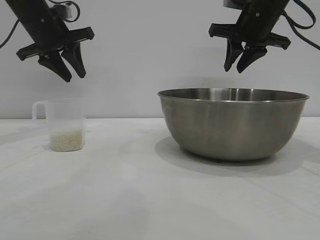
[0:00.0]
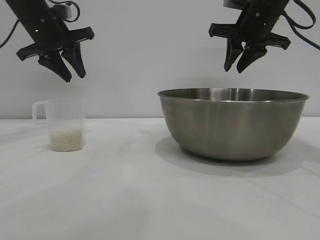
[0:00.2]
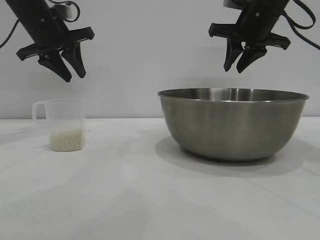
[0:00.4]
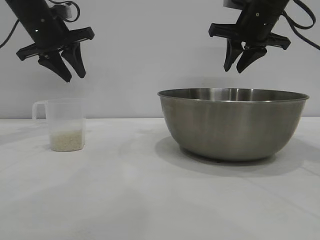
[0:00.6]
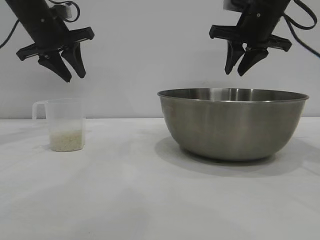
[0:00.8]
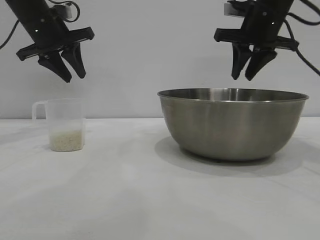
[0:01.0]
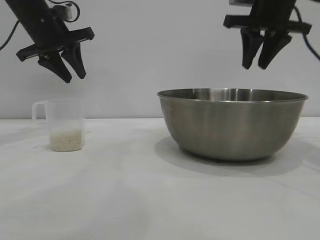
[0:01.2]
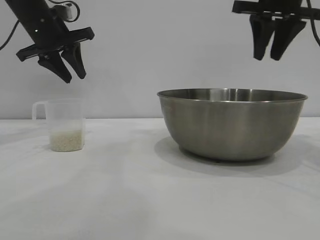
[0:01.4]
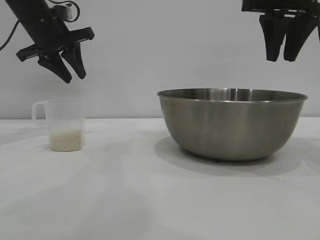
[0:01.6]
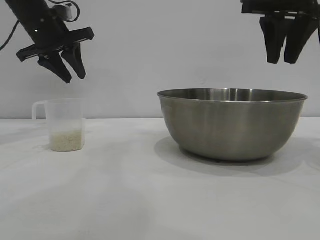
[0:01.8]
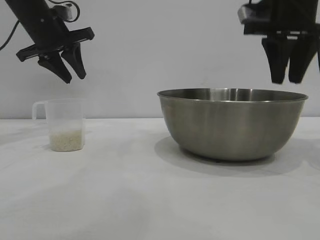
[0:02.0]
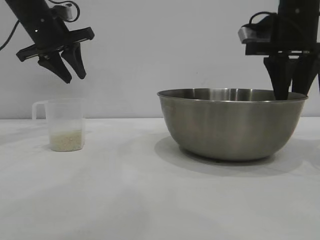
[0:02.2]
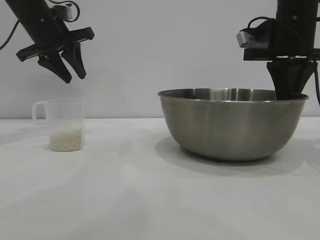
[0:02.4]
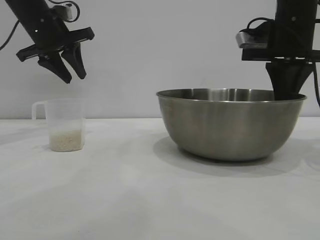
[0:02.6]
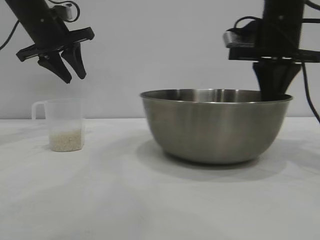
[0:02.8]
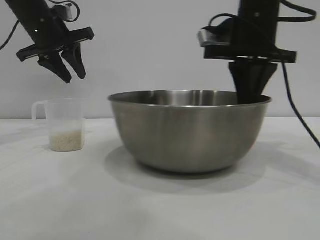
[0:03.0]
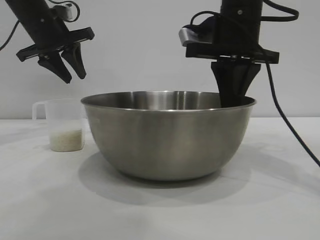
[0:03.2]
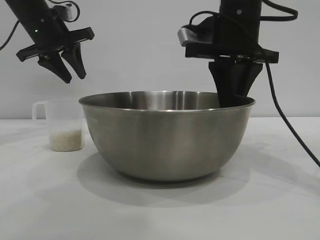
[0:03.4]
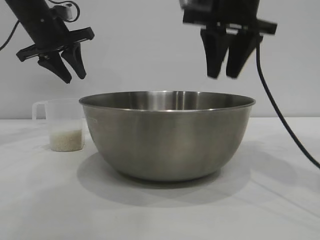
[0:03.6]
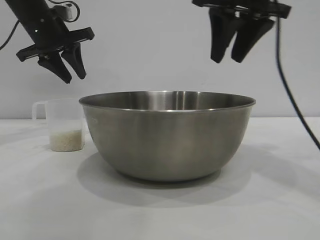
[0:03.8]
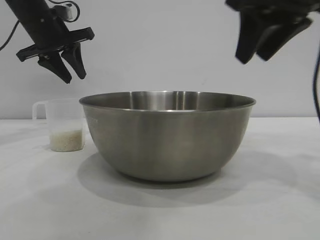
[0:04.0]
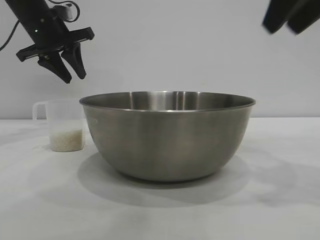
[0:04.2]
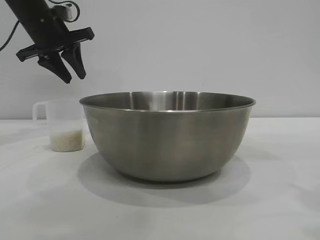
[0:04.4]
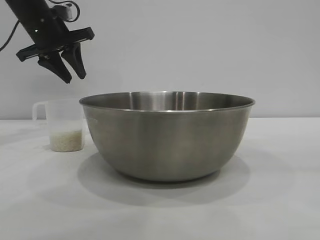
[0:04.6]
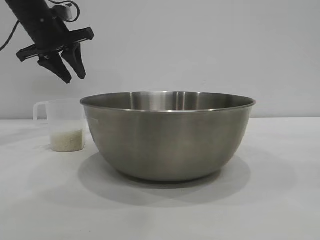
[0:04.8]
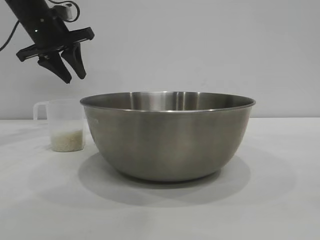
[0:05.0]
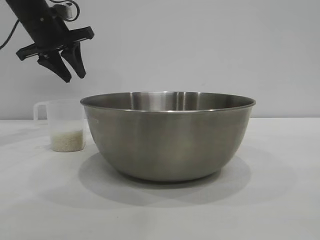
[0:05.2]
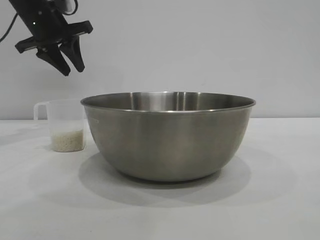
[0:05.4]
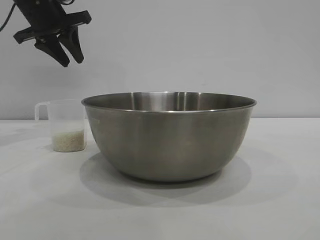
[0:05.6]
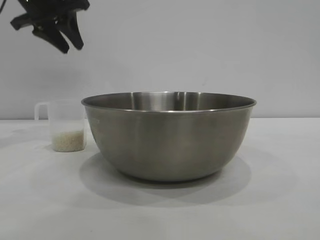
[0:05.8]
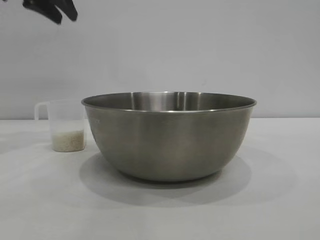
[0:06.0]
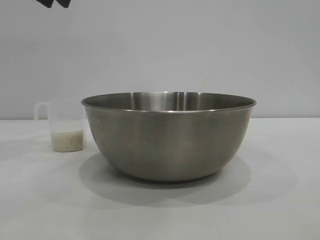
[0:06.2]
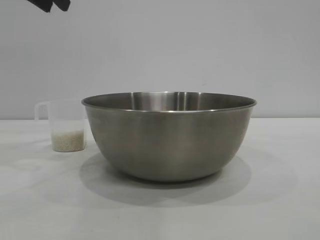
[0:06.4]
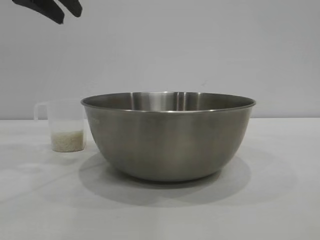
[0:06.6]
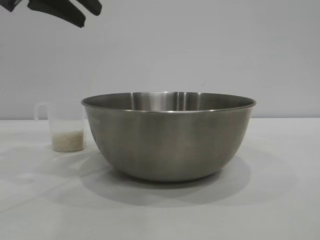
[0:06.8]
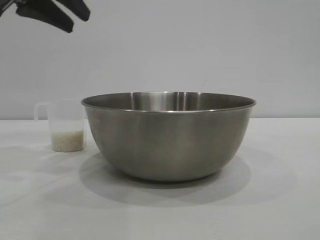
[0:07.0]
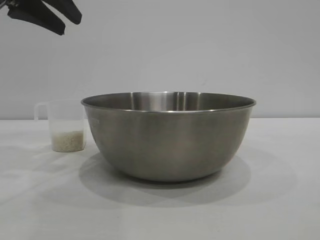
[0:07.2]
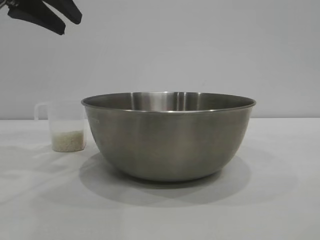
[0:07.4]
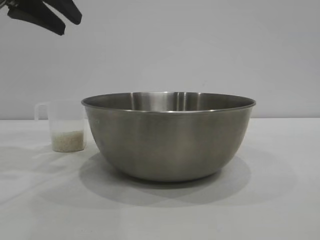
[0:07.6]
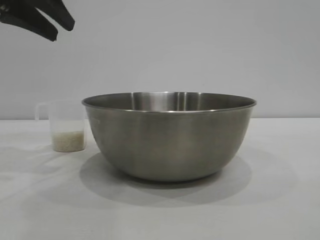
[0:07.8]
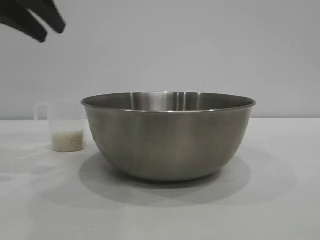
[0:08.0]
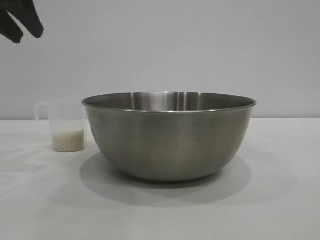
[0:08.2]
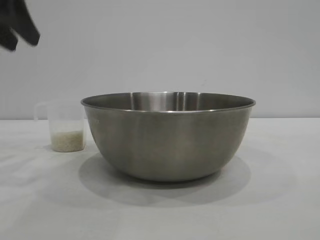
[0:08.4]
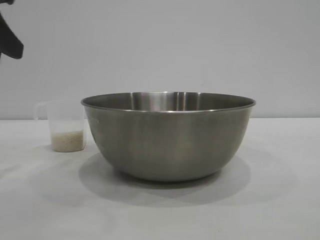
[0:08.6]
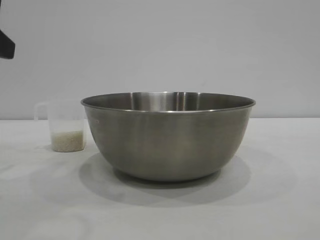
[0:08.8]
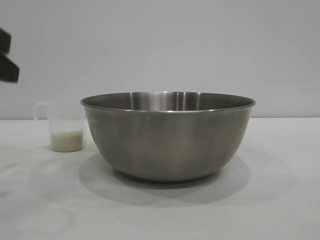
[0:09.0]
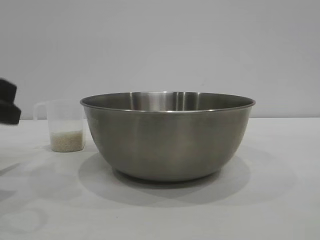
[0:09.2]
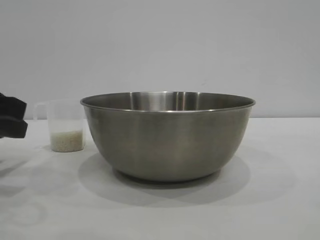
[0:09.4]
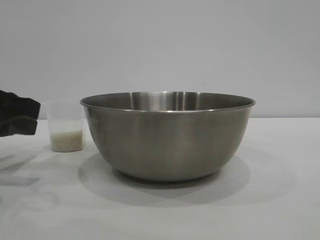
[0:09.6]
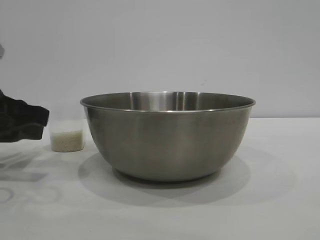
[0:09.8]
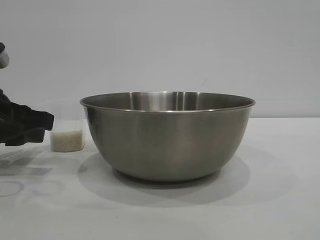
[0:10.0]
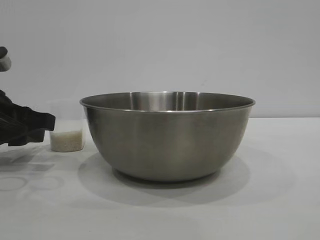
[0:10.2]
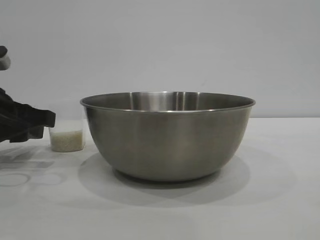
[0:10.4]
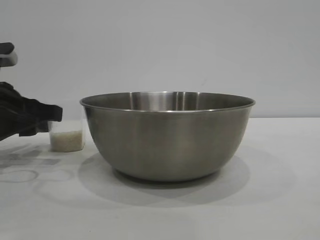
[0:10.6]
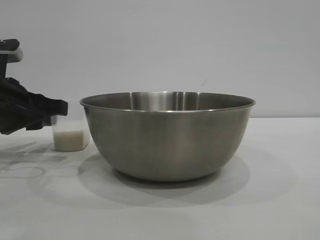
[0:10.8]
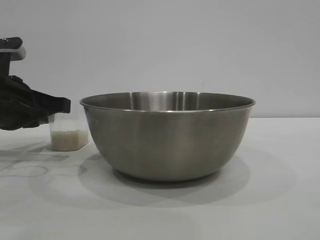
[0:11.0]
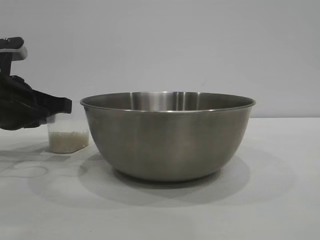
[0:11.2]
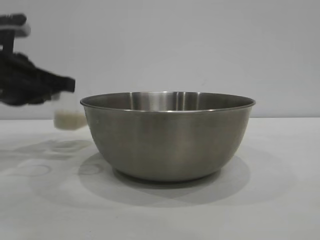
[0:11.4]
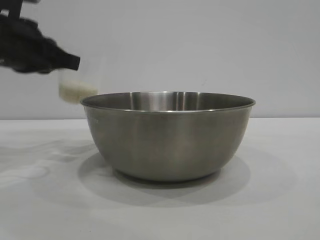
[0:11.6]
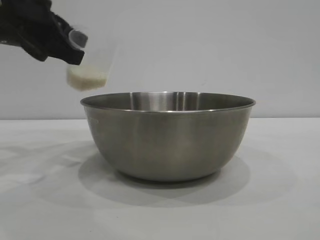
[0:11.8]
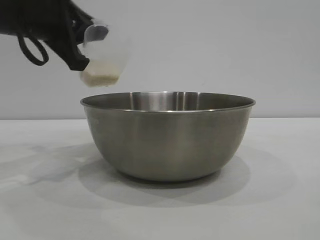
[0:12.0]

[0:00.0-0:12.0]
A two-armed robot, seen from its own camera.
Task of the whole recording: the right gripper grasp the rice container and place it in the center of the table, the left gripper grasp the rice scoop and pour the rice into the rice container.
Step, 0:00.0 to 0:03.4: Move the bowl to the center of view with the right gripper.
Step, 0:03.6 to 0:11.2: Pick up the cup with rice in it with the left gripper.

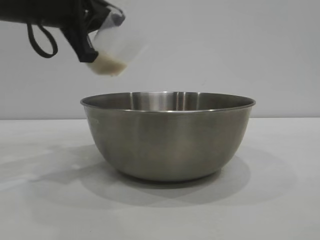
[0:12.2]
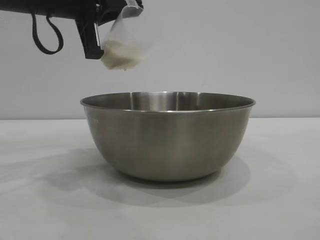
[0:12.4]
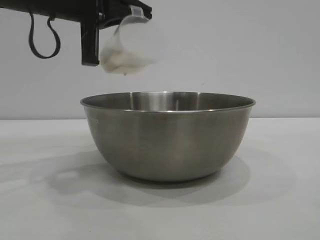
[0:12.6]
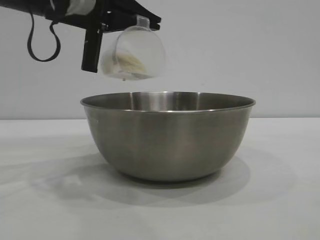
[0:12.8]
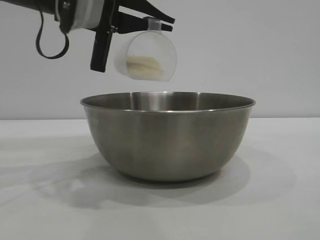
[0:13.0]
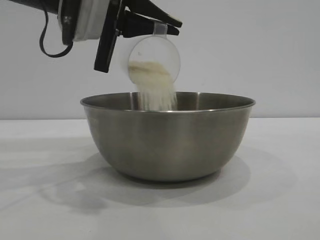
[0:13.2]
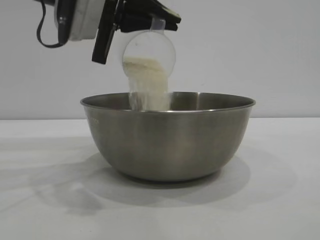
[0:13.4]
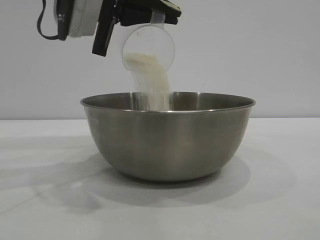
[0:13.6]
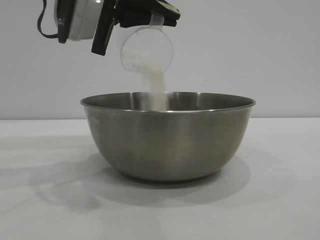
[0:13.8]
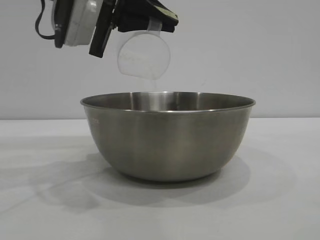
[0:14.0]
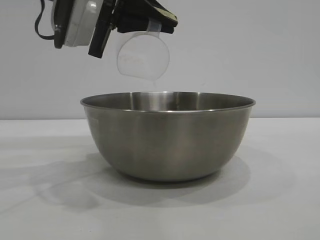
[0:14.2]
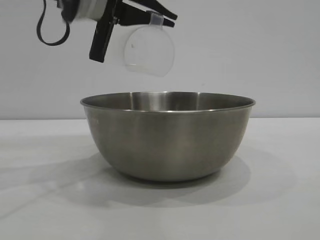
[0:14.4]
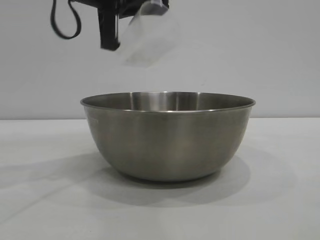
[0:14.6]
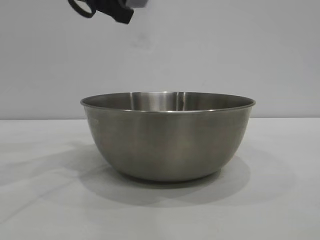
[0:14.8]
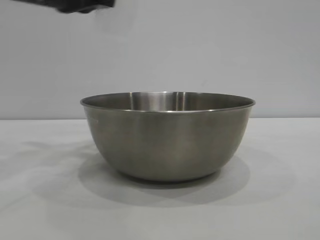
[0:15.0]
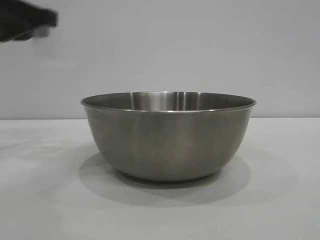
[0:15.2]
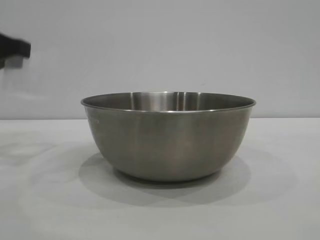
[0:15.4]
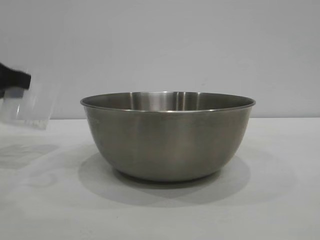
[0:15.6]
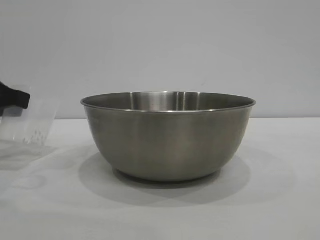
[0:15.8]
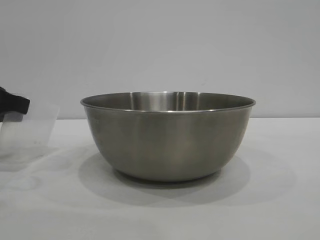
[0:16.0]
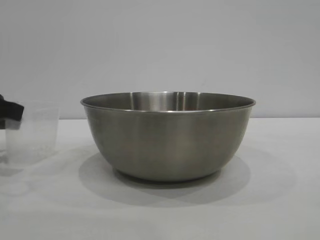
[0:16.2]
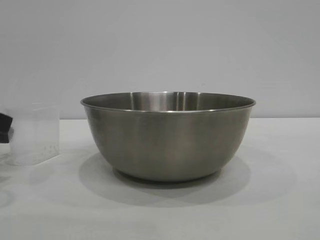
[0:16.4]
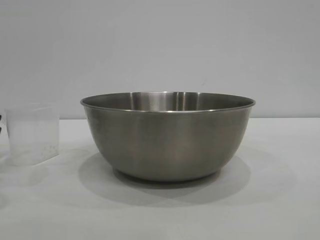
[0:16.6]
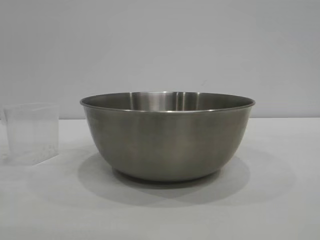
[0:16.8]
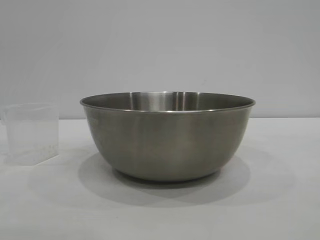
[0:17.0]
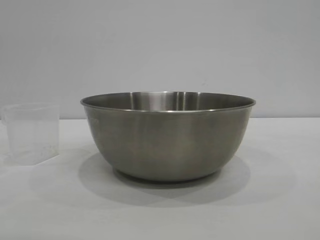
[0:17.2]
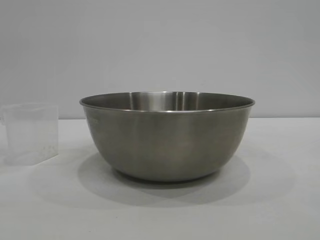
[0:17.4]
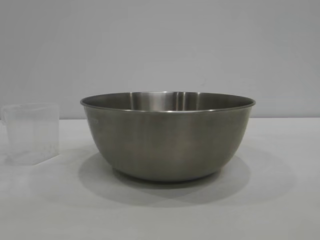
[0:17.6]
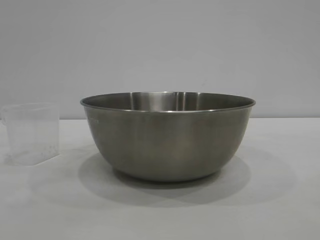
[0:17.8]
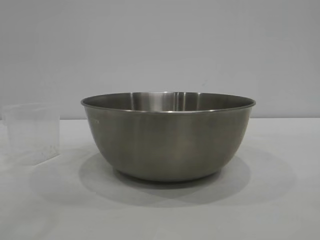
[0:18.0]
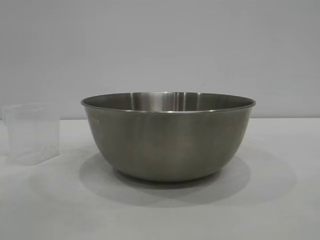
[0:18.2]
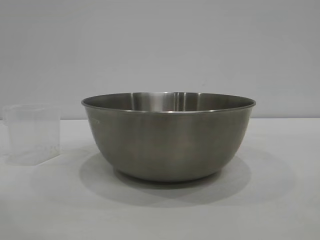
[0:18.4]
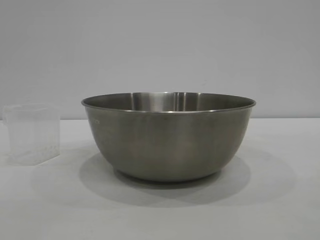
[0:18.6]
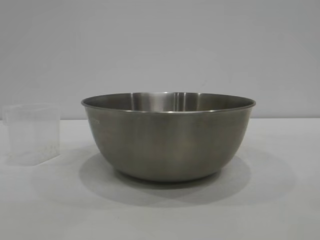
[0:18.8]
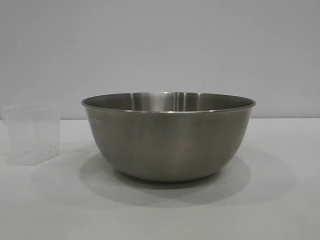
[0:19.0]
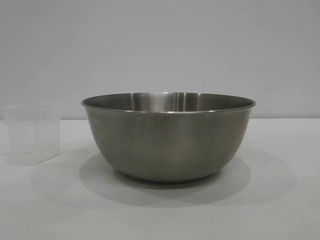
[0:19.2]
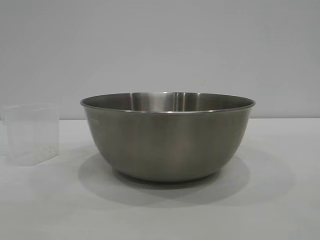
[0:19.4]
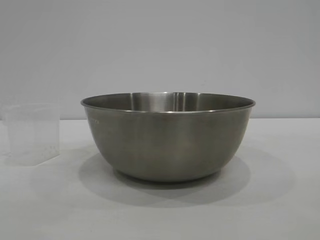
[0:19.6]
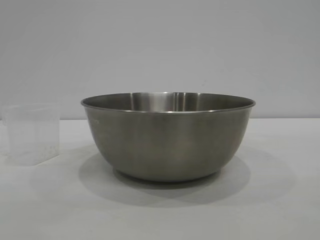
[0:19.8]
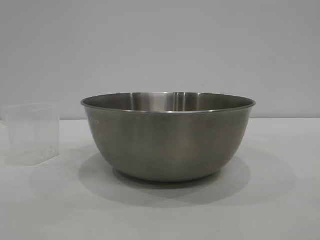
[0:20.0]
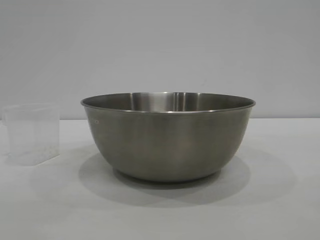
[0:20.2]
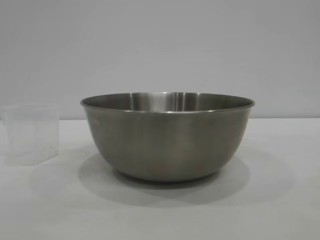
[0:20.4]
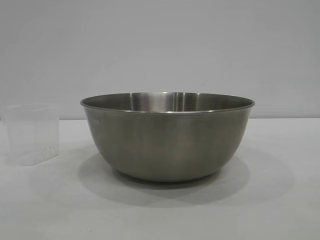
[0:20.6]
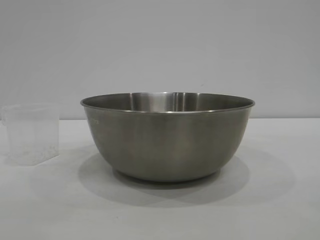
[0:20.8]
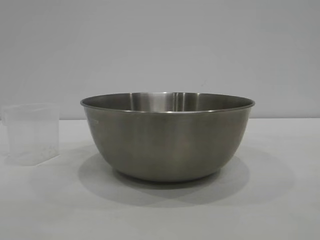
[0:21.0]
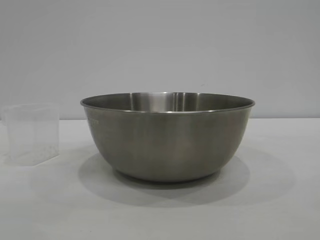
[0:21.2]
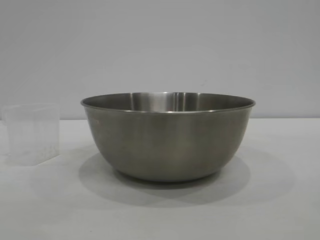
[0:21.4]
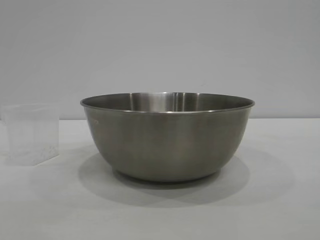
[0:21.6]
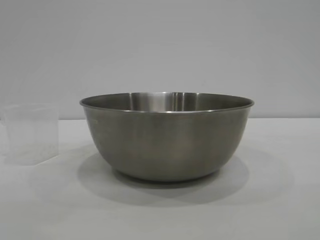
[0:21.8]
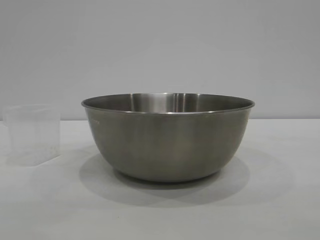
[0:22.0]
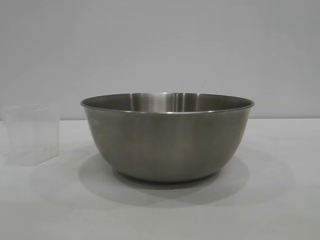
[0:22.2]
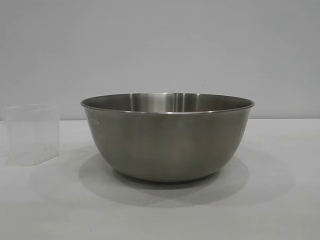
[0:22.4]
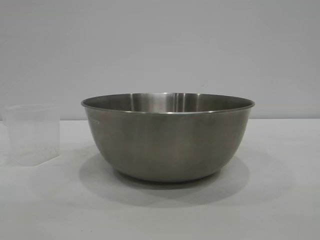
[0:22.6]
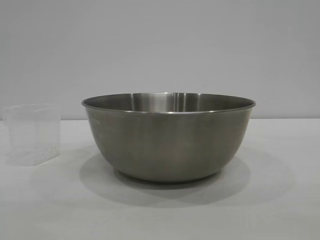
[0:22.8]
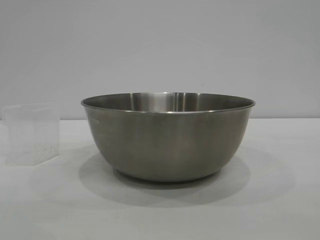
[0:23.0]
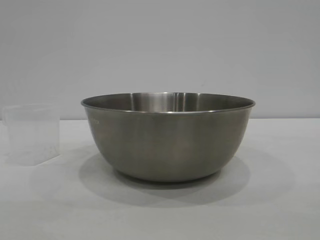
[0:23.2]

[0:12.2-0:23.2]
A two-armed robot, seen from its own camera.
Task of the whole recording: the right gripper grasp the rice container and place it in the center of the table, the left gripper grasp the rice scoop and pour the rice into the rice container.
Step, 0:12.2 to 0:14.4: Pour the rice from the cup into the bowl with the left gripper.
Step, 0:14.6 to 0:16.6: Place the cup on the table with the left gripper.
